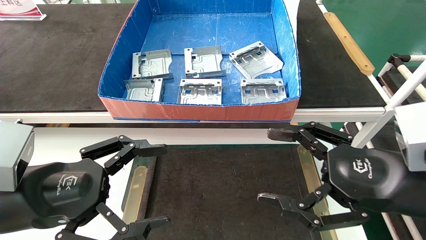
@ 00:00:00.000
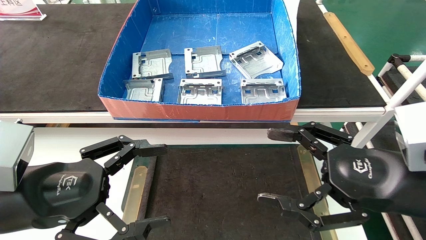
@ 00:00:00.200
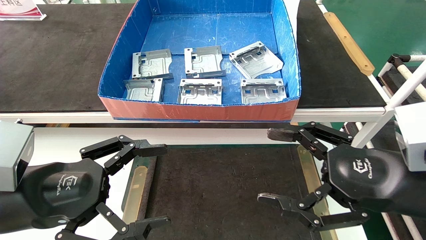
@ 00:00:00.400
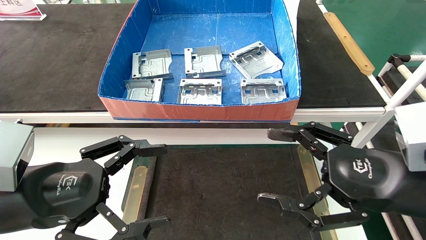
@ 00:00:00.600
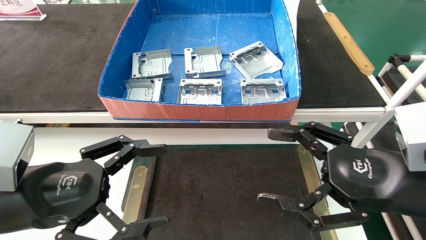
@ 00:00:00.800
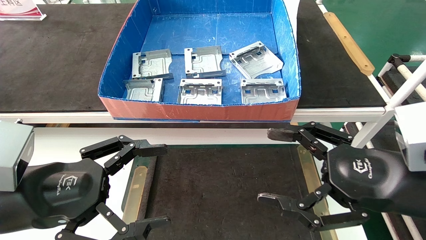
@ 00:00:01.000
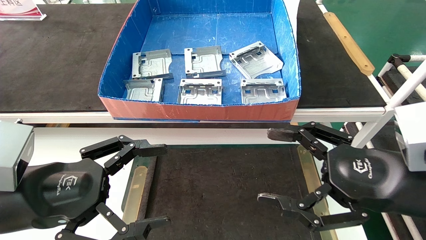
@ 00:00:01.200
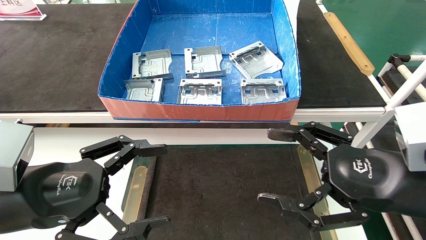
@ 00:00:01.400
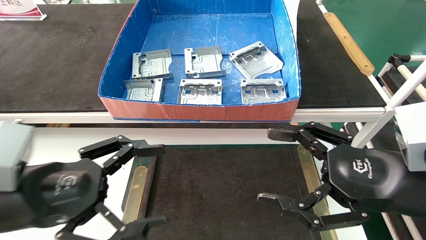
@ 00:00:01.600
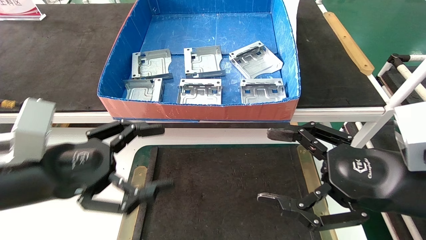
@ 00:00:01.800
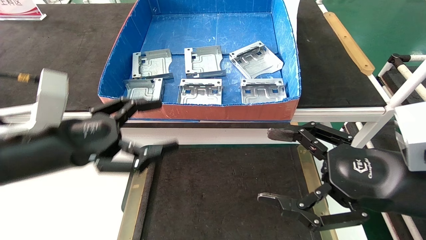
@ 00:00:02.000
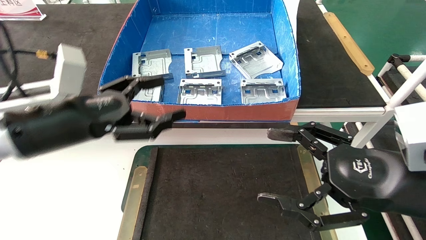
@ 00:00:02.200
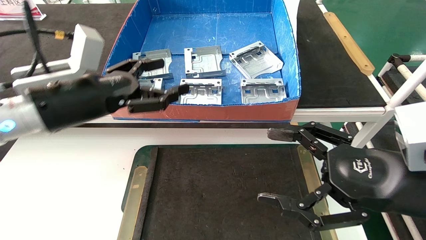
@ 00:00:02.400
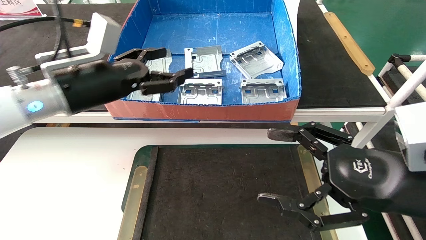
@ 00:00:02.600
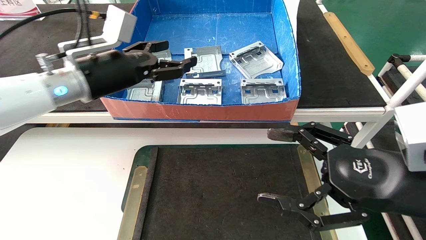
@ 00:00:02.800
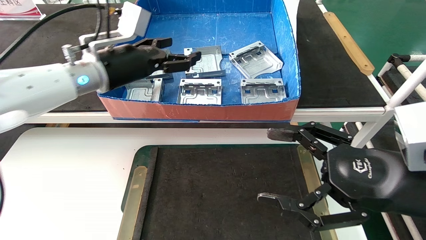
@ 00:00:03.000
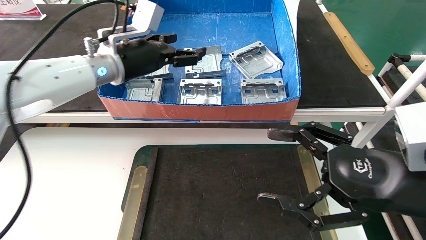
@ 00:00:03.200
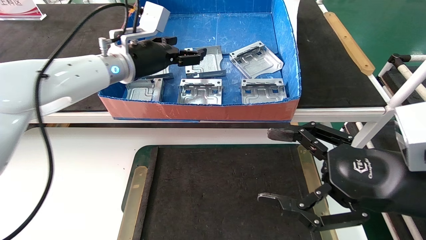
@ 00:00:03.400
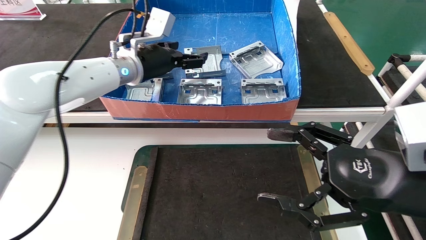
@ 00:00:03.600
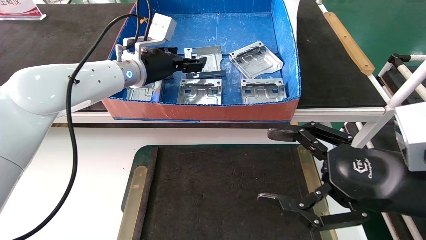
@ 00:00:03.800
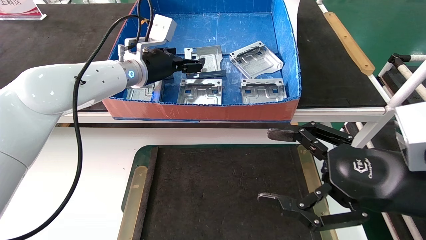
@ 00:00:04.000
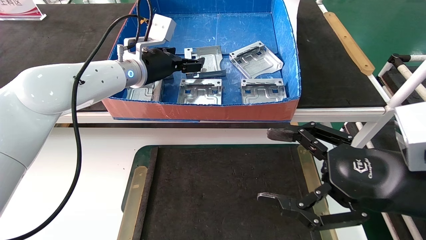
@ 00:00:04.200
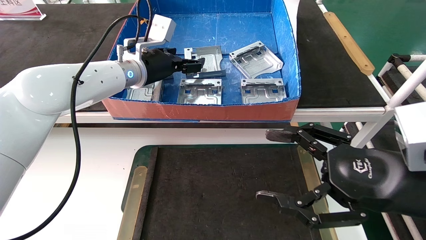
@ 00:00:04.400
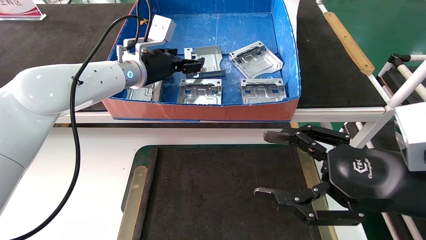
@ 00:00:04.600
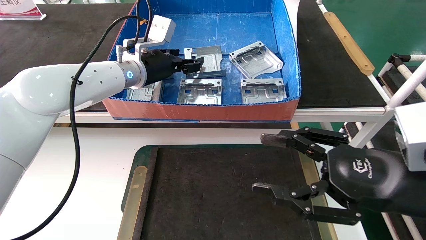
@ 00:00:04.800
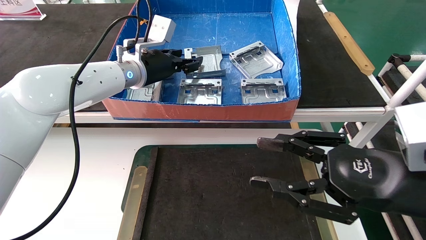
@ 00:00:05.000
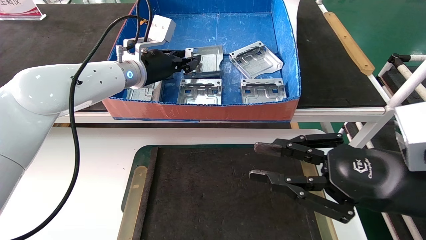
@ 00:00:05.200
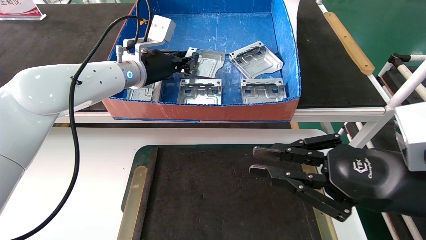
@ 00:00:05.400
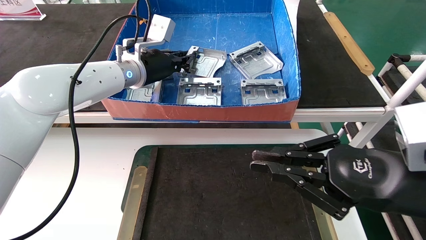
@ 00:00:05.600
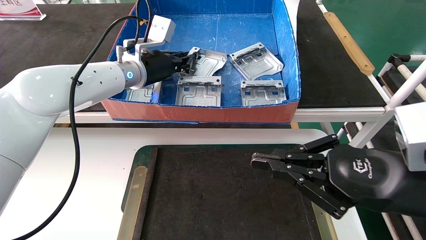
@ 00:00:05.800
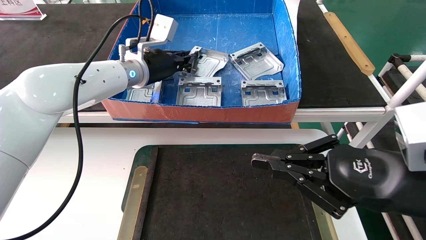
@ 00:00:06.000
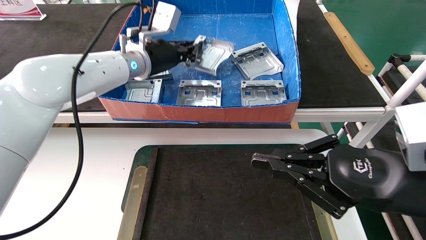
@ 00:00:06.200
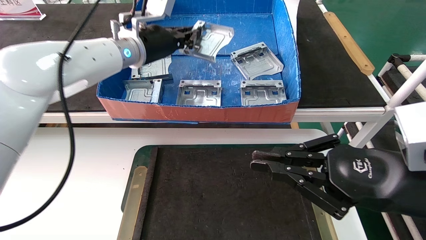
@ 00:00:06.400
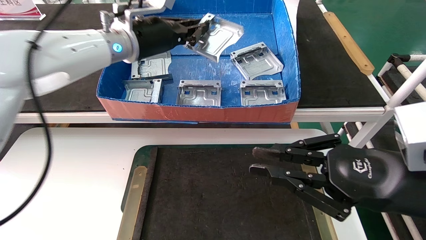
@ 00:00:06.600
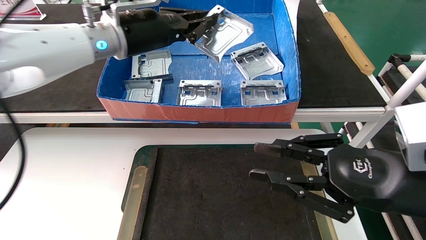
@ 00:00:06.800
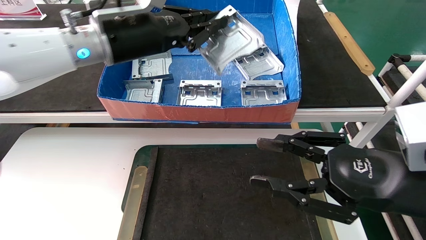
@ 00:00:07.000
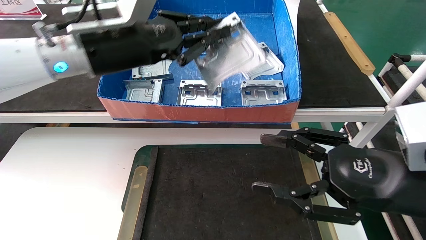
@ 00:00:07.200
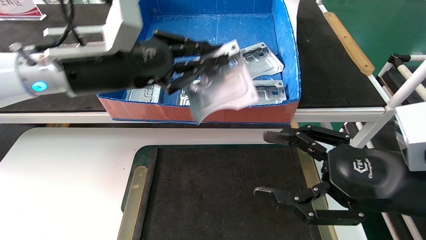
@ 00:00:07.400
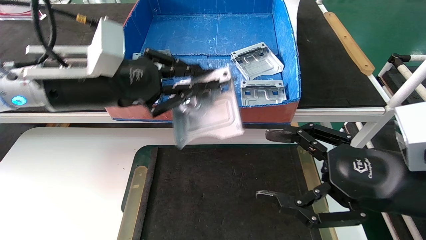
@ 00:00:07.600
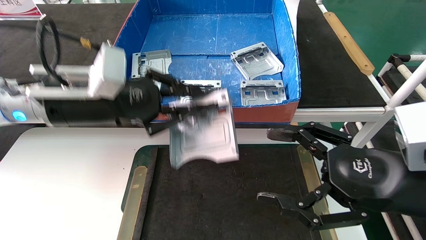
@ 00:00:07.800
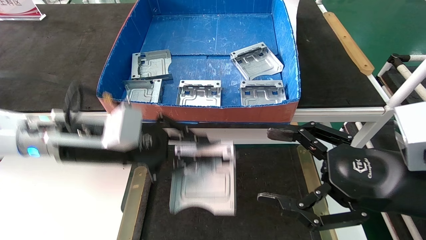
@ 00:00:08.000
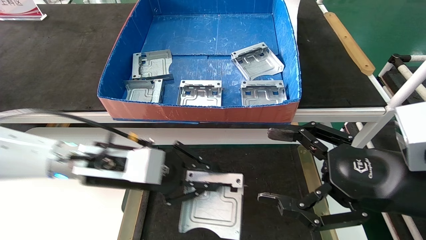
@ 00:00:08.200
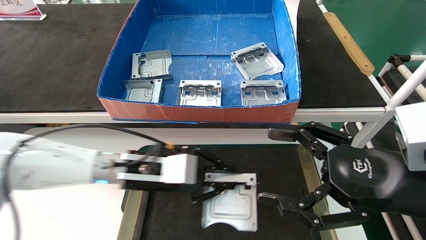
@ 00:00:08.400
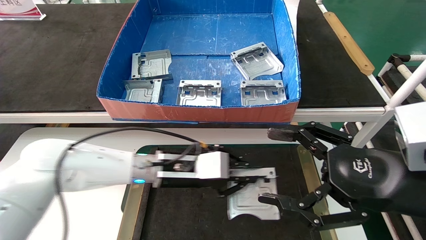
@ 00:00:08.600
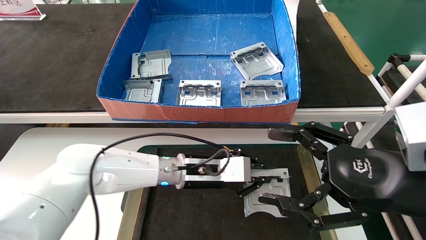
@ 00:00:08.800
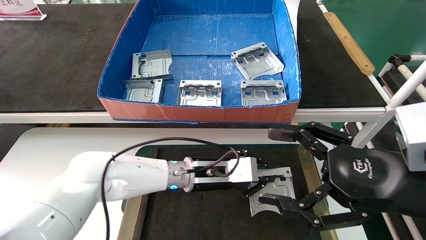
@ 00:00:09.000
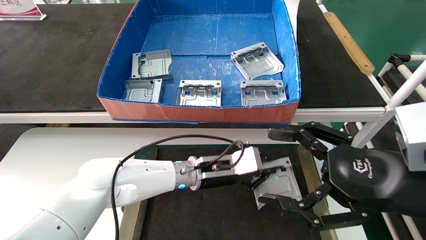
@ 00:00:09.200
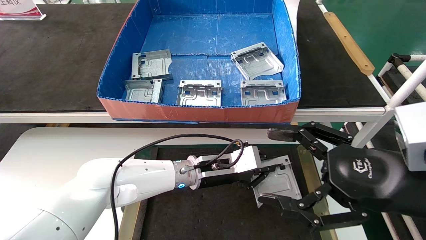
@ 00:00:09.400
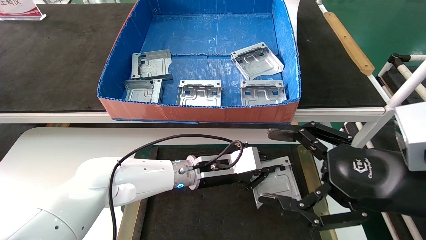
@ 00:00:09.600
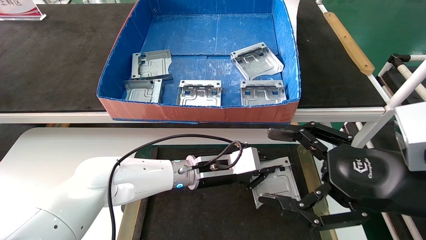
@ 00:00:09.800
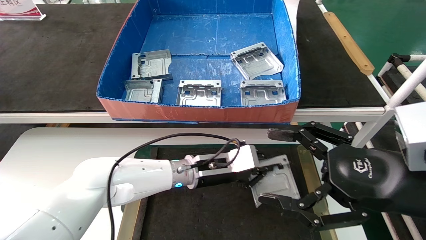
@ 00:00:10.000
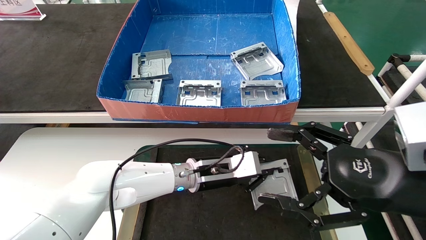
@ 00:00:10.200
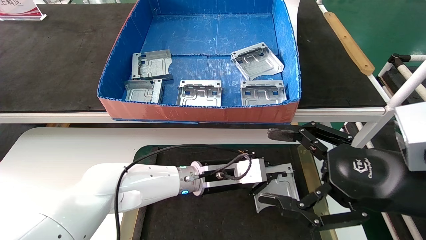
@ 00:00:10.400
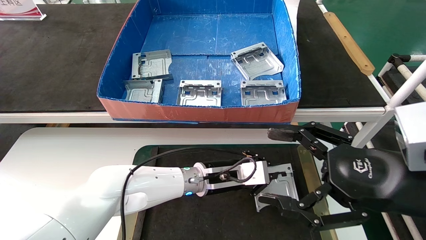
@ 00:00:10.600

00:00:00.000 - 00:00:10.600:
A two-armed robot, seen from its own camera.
Task of the whole recording: take the accessories out of the box and place them on the table.
Step, 00:00:01.000 - 00:00:06.200: Pick up the hard drive bracket from the feeding area.
00:00:00.000 - 00:00:01.600: The grippers move only a little.
00:00:01.600 - 00:00:03.000: The left gripper goes roughly 20 cm forward and upward.
00:00:03.000 - 00:00:04.600: The left gripper heads forward, covering some 5 cm.
00:00:04.600 - 00:00:06.000: The left gripper closes up. The right gripper closes.
00:00:06.000 - 00:00:07.600: The left gripper goes roughly 15 cm backward and to the left. The right gripper opens up.
00:00:07.600 - 00:00:09.000: The left gripper shifts about 25 cm downward, to the right and forward.
00:00:09.000 - 00:00:10.600: There are only small adjustments of the grippers.

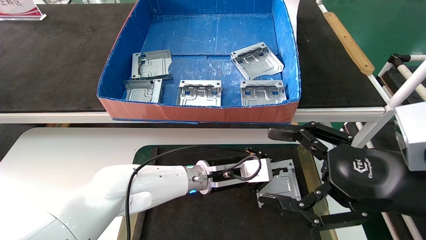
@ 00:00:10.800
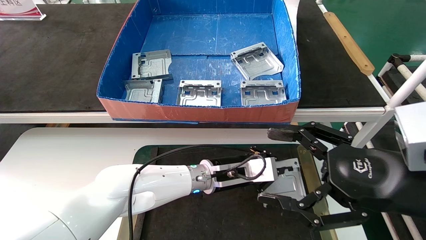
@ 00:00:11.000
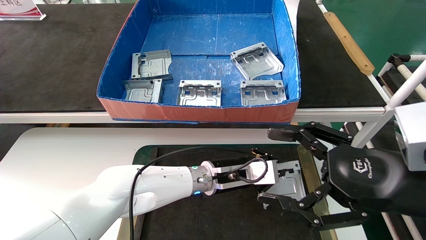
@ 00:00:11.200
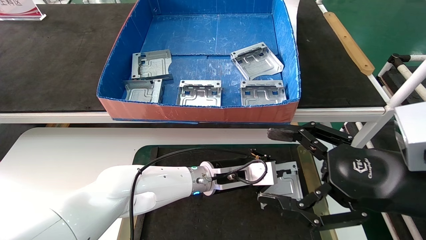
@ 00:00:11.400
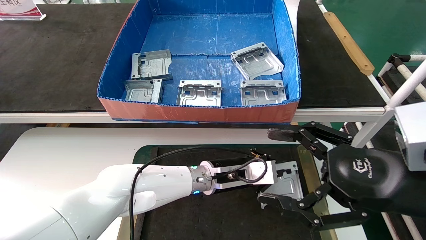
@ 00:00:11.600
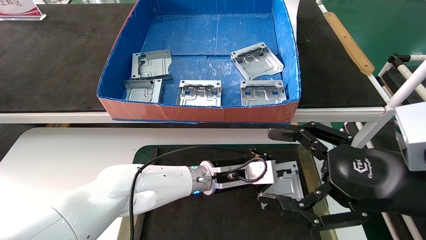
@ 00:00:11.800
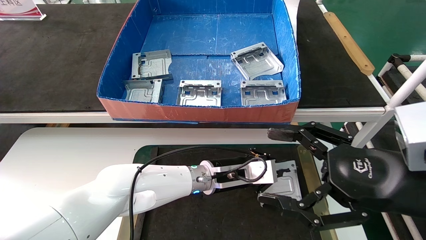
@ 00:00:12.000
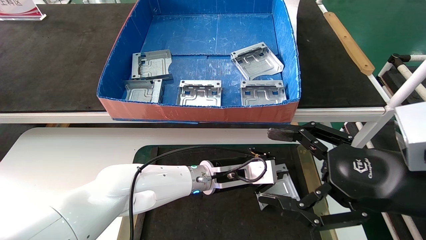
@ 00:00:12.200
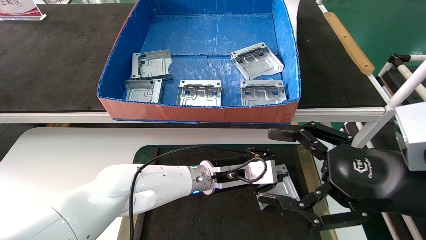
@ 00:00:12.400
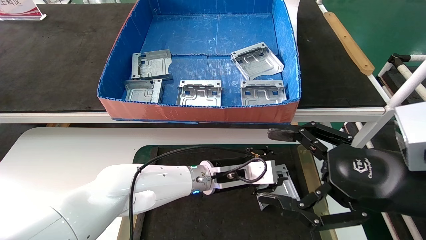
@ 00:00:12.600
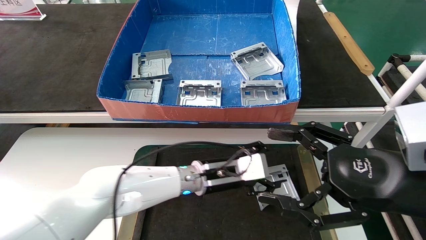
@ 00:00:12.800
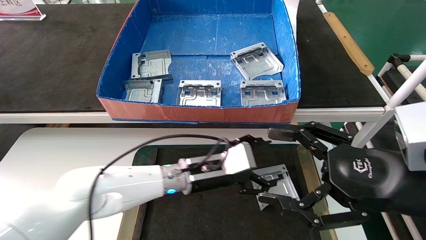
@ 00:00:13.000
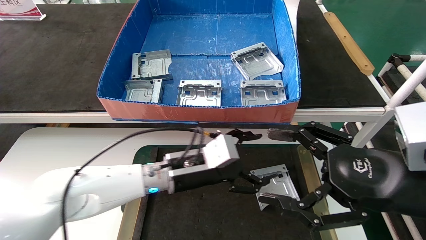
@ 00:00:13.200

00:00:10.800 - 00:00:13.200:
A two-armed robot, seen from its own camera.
Task of the whole recording: take the accessories out of the box and place them on the table.
00:00:10.800 - 00:00:12.000: The two grippers keep their place.
00:00:12.000 - 00:00:13.200: The left gripper heads to the left, covering some 5 cm, and opens its fingers.
